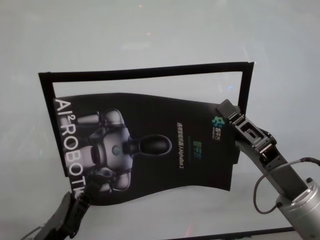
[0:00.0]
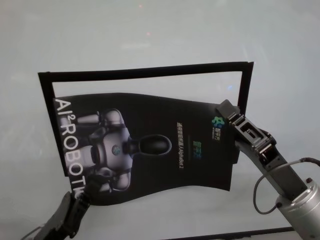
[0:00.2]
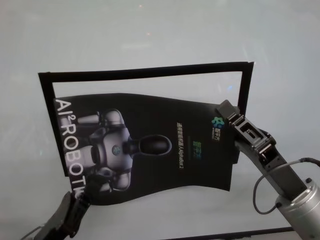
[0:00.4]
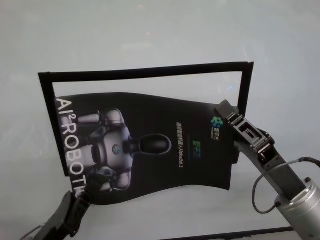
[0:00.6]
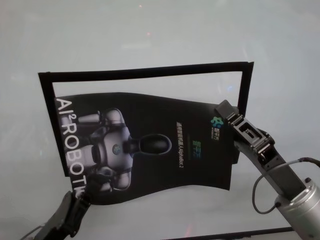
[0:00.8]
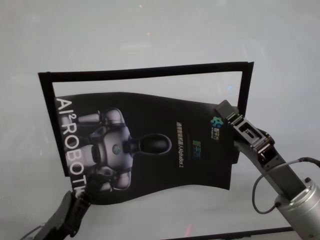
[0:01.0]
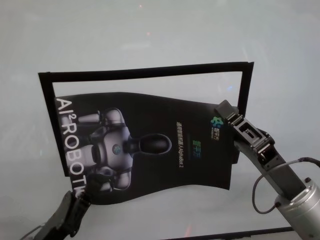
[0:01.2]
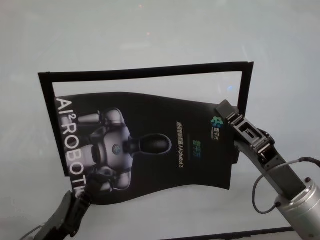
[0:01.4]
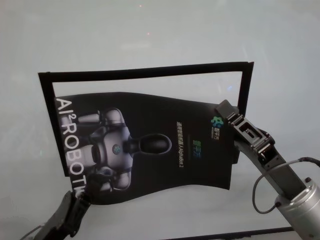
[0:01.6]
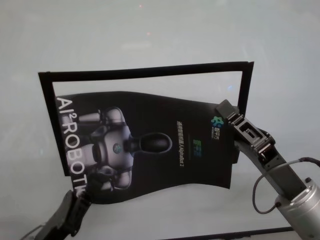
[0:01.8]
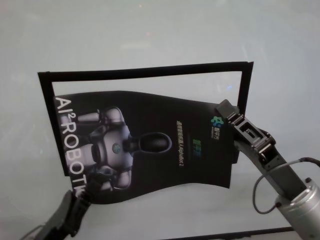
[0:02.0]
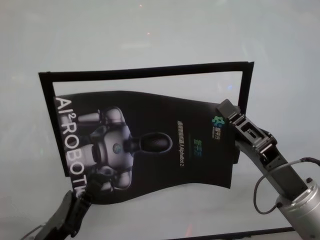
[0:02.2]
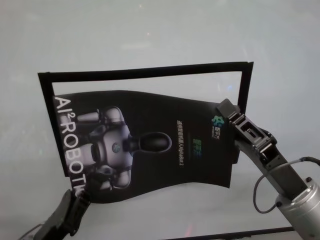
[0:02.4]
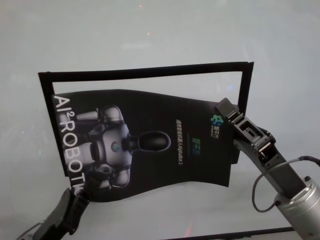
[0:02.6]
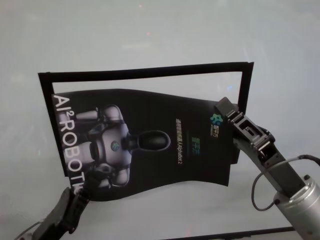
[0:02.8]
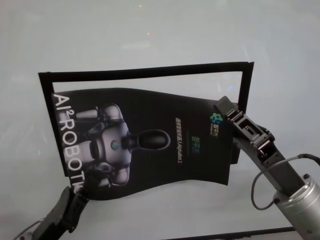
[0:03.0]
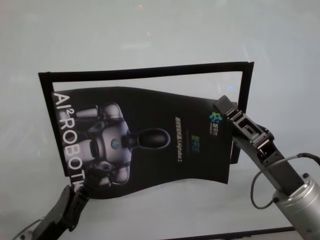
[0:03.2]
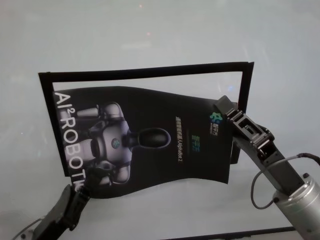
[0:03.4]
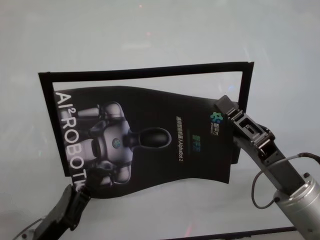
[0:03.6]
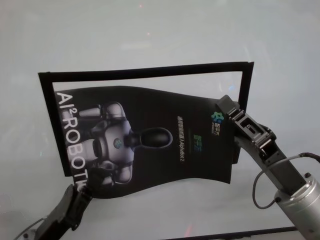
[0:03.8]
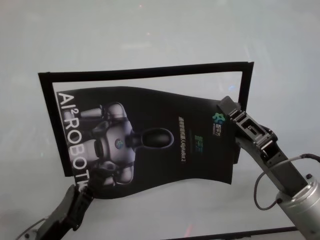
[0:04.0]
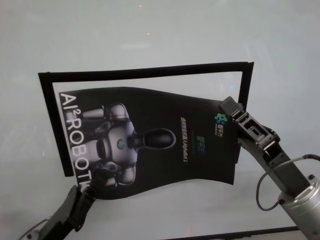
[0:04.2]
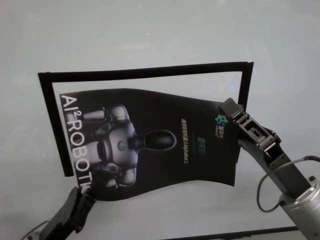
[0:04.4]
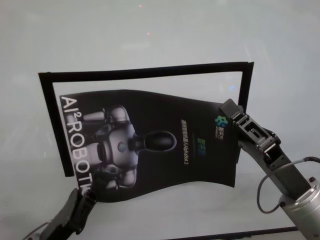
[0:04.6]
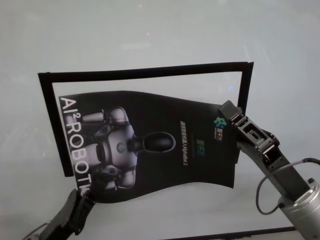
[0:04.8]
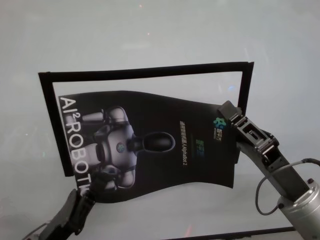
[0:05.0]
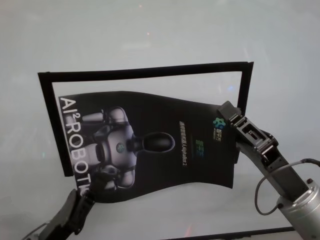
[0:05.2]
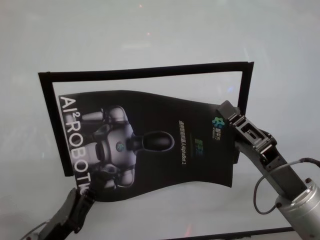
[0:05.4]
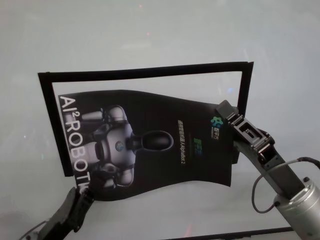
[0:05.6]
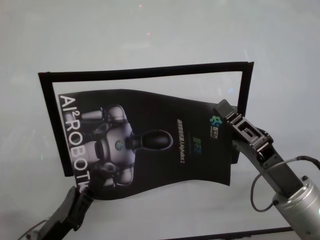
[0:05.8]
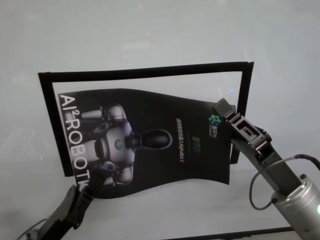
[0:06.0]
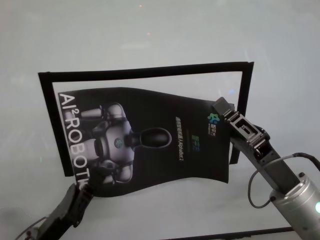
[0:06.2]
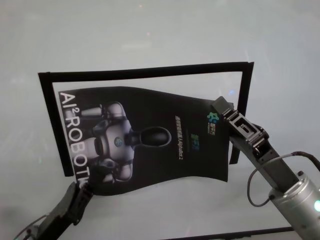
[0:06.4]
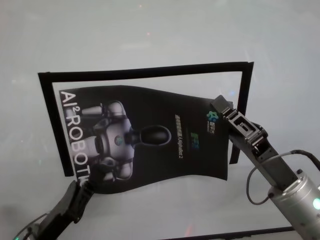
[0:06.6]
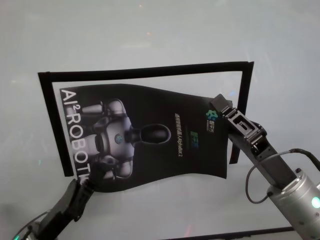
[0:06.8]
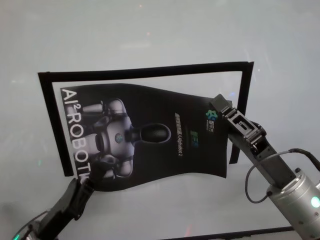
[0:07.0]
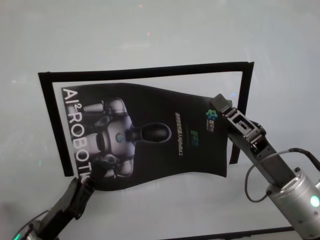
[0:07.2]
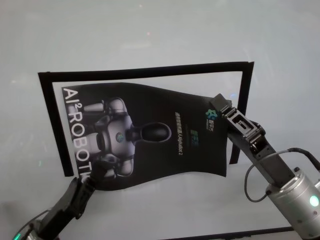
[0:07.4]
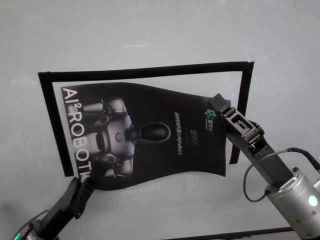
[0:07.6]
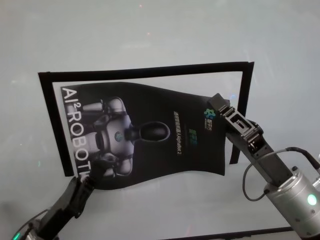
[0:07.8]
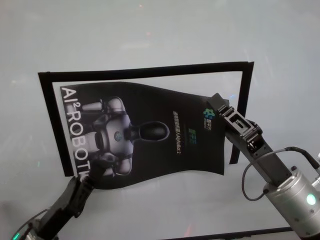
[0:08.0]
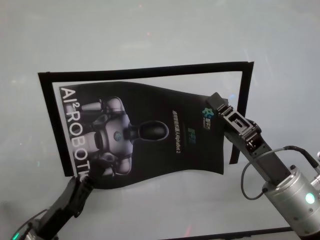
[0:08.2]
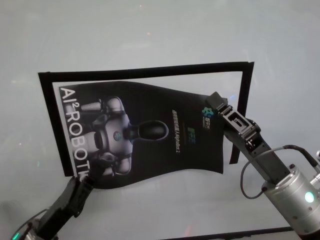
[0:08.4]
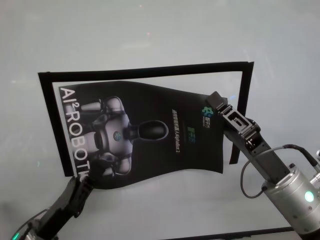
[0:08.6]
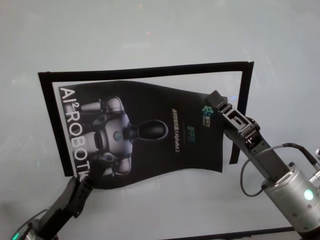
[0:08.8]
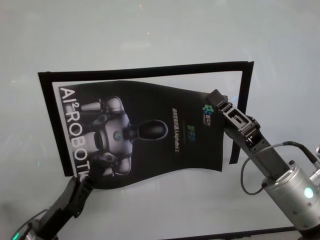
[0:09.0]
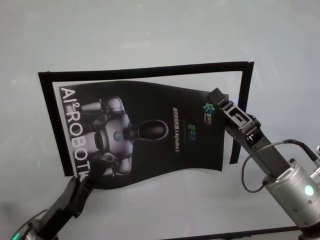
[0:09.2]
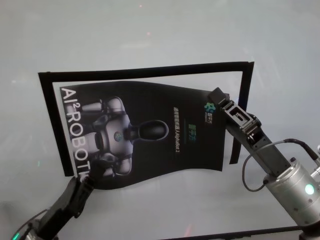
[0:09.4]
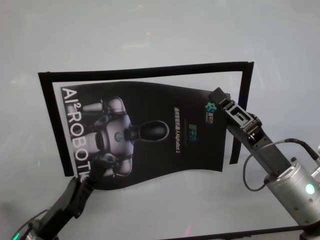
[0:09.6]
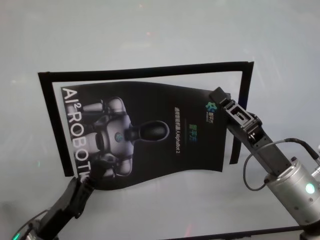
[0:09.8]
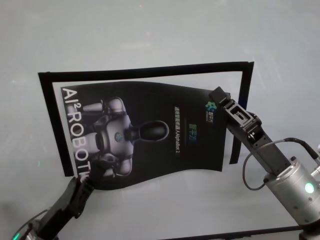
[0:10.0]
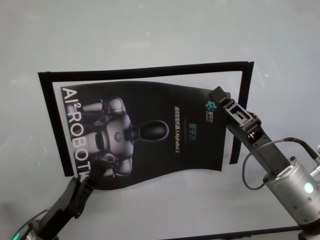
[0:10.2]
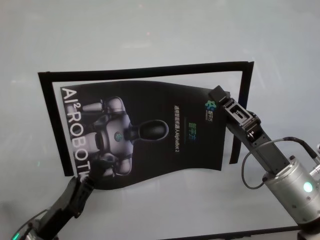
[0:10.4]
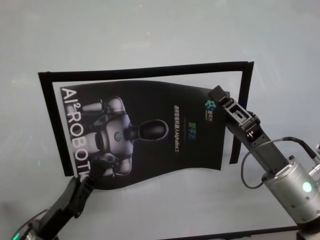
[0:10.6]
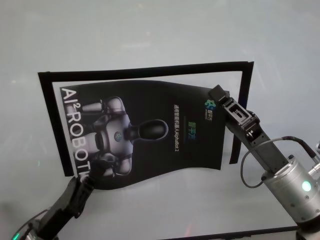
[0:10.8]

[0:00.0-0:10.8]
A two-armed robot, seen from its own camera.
Task of the whole recording: stick the poster on the table by hand.
Step, 0:00.0 to 0:10.8: Stick the advertisement in the top-right corner area with both grippers.
